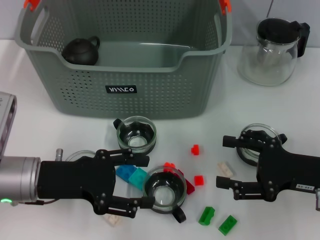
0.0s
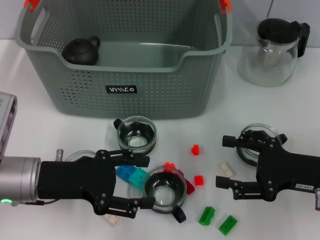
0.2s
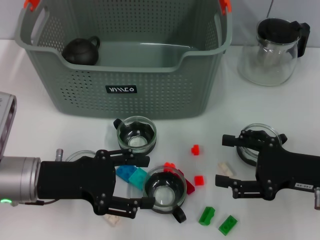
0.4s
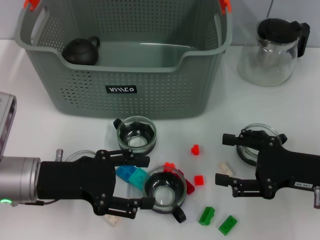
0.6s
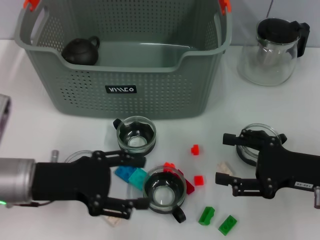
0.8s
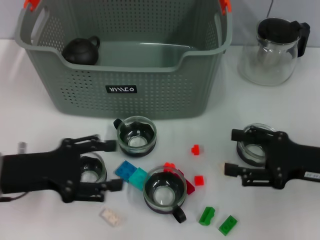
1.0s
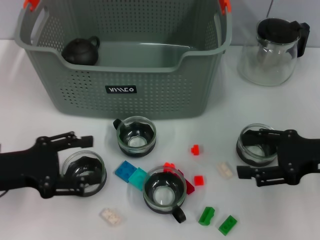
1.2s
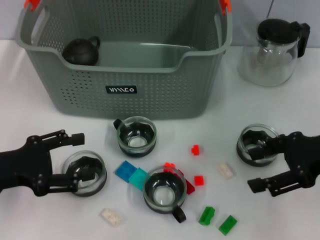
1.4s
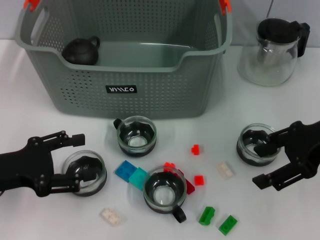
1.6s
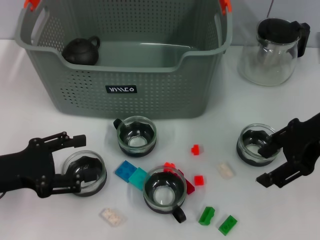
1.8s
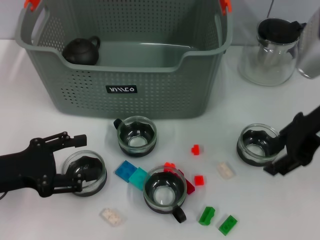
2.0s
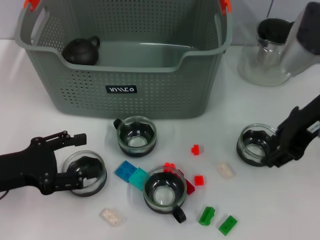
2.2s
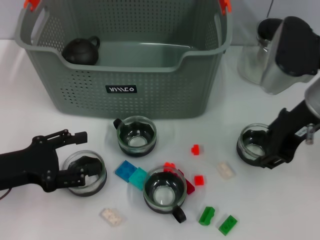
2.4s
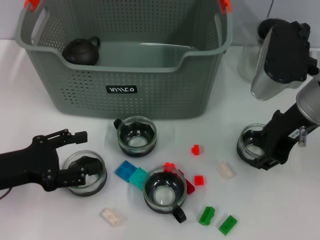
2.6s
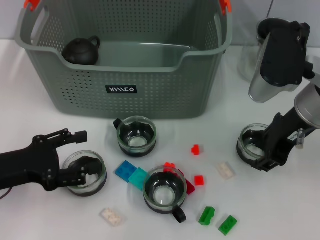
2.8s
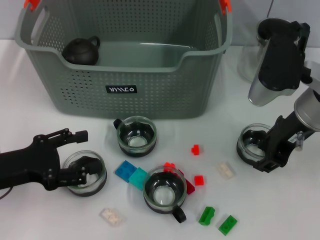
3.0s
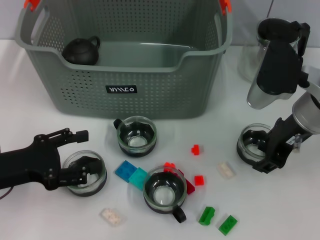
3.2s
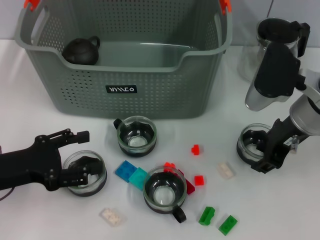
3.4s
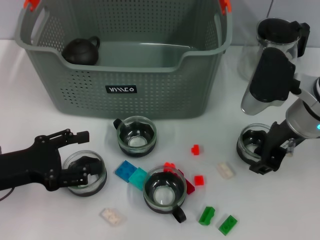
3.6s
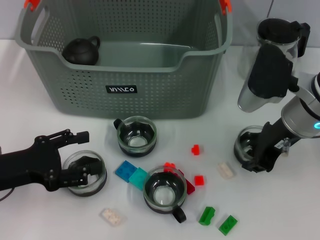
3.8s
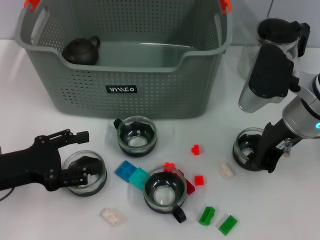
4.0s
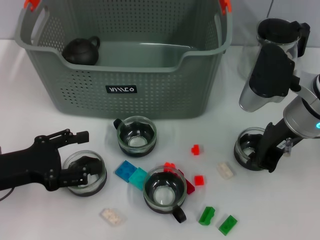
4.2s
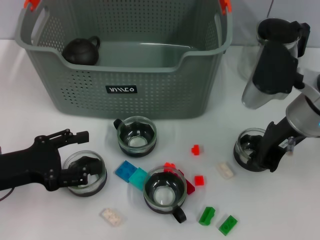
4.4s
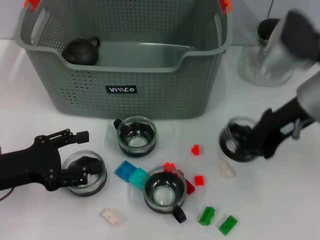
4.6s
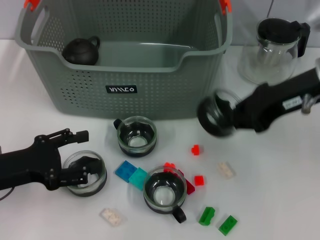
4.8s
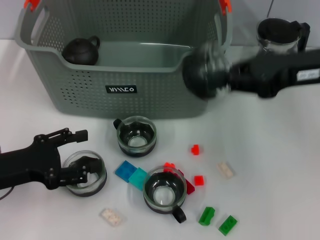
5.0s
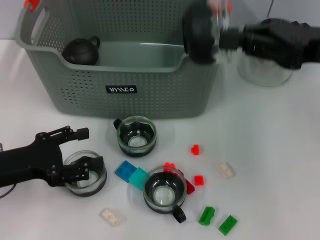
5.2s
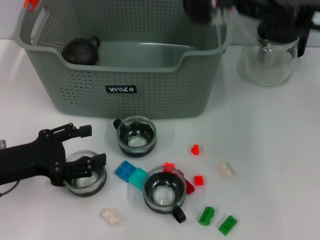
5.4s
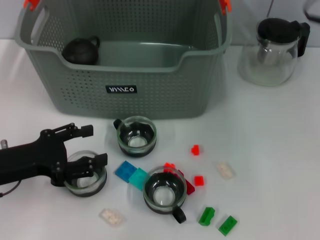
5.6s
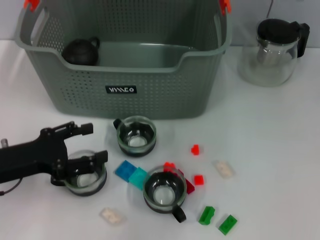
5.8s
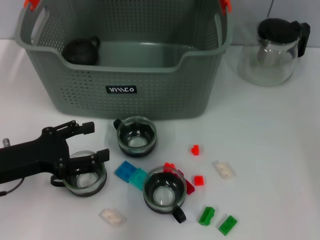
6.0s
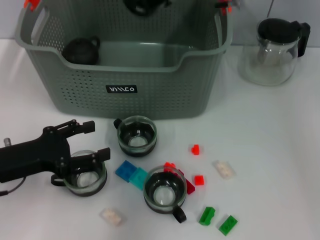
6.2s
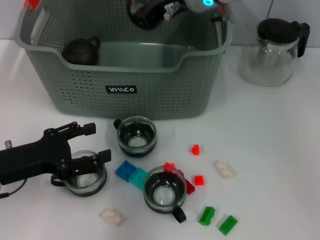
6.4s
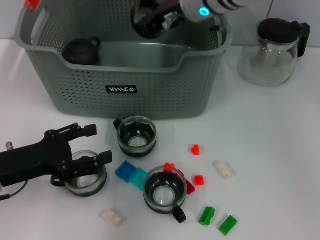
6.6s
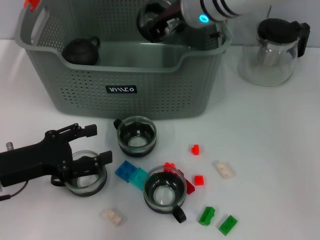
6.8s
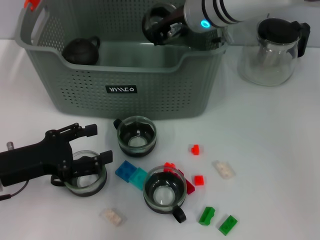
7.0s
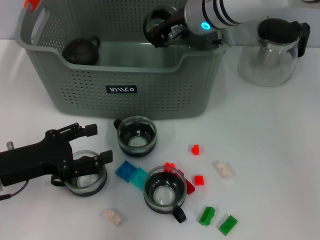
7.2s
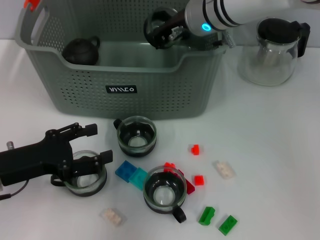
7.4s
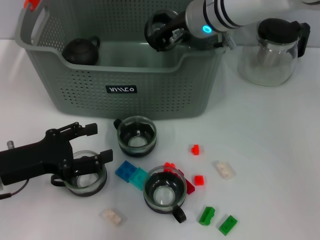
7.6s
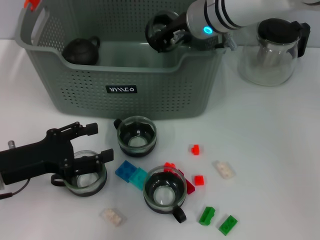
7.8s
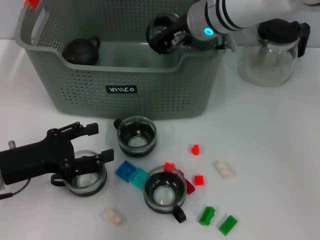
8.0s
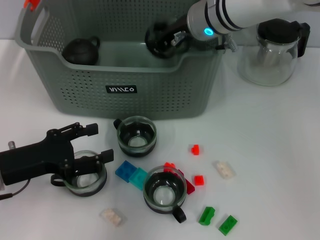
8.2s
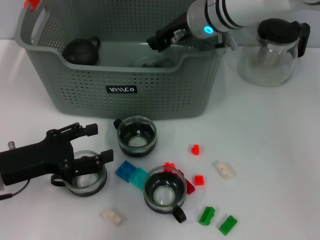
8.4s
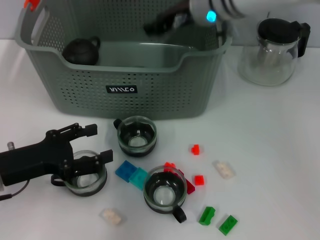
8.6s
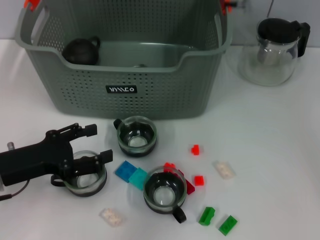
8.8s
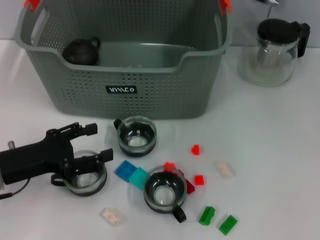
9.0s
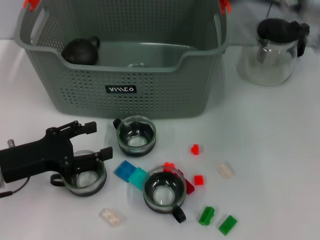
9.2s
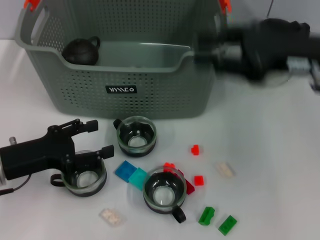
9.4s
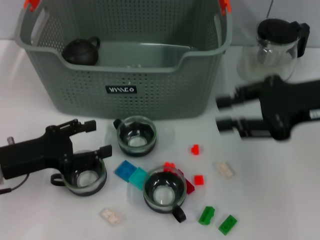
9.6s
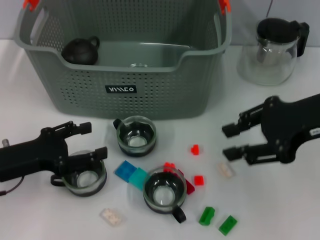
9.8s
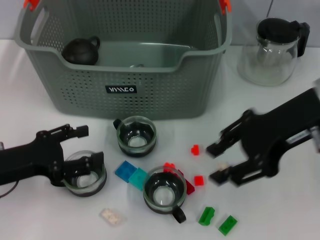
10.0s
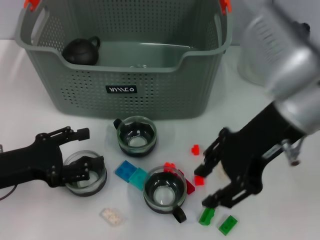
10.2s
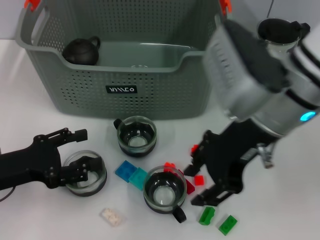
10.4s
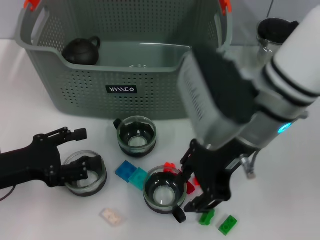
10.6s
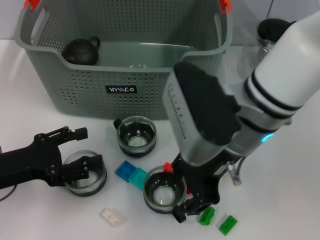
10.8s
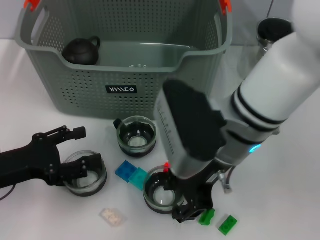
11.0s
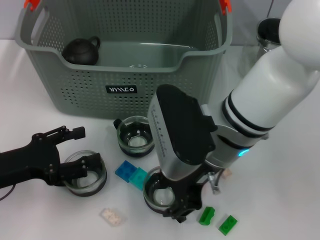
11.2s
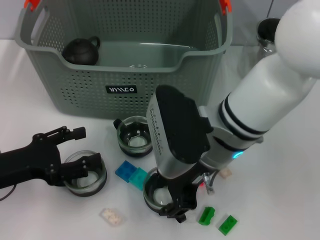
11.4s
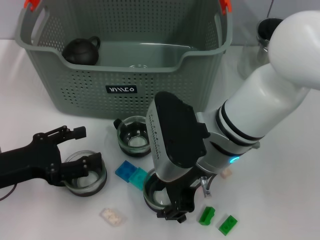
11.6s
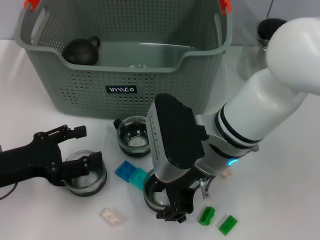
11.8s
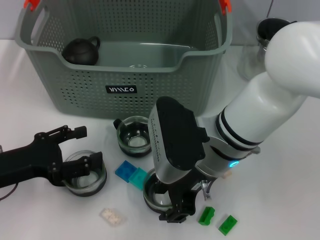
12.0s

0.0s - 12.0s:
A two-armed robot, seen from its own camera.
Task of the whole recording: pick up the teacup on the table and place it into the storage bin, pick up the block on the table and place it into the storage bin.
Step, 0.0s - 4.0s: Grasp the cup with right gripper.
Step, 4.2s - 8.4s: Place the cup in the storage box with right gripper.
0.0s - 1.6s: The right gripper is displaced upward and forward by approximately 15 cm; the left gripper goes approximately 5 cm to the left.
1.6s - 3.0s: The right gripper travels to the left by about 5 cm.
3.0s - 4.4s: The right gripper closes its fingers.
4.4s - 6.0s: The right gripper moves upward, forward and to the left, roughly 20 cm.
6.0s - 7.6s: The right gripper heads downward, covering about 10 cm.
7.6s - 9.0s: The right gripper moves to the right and upward, approximately 10 cm, and opens.
9.0s - 10.4s: The right gripper moves backward, approximately 15 cm, and goes to the right and returns, some 10 cm each way.
10.4s - 12.0s: The right gripper travels downward and to the left by some 10 cm.

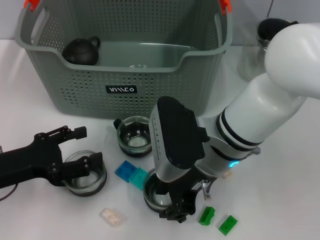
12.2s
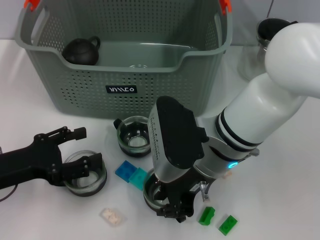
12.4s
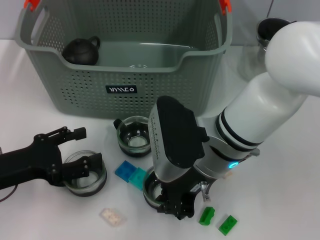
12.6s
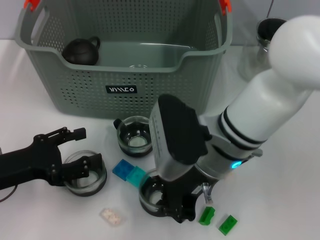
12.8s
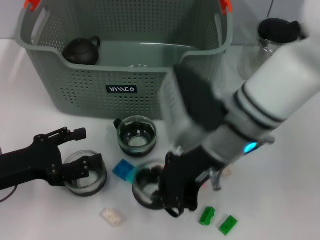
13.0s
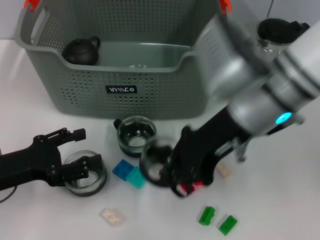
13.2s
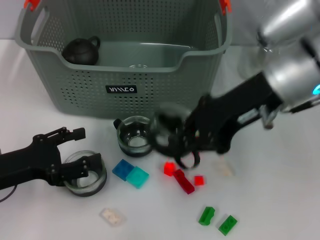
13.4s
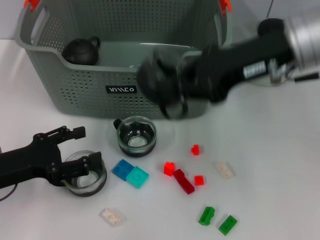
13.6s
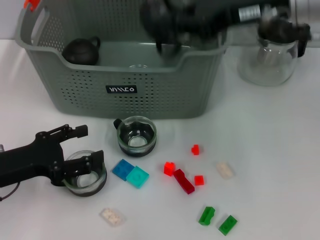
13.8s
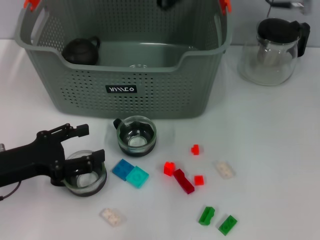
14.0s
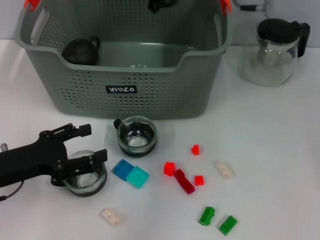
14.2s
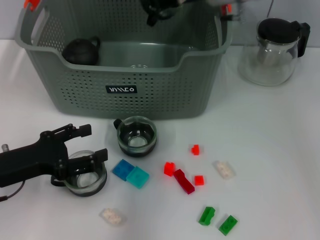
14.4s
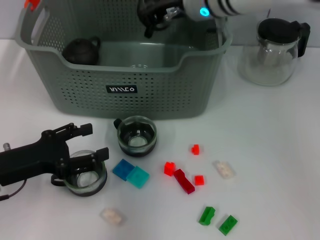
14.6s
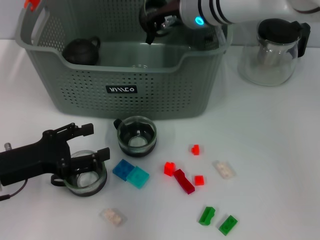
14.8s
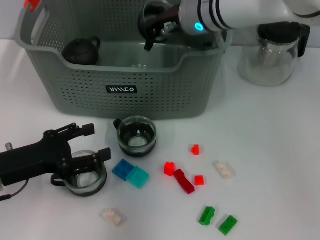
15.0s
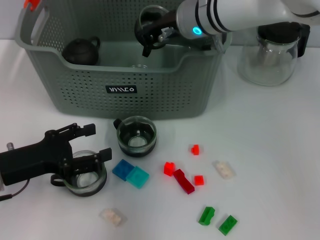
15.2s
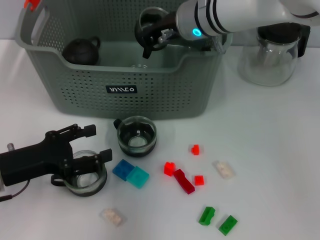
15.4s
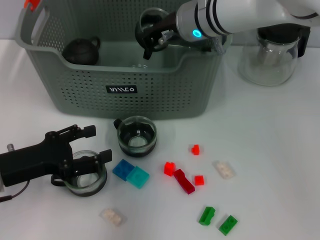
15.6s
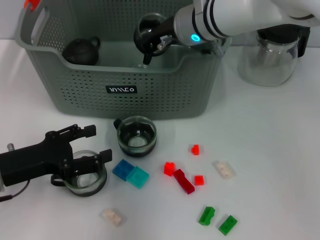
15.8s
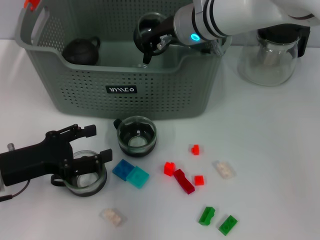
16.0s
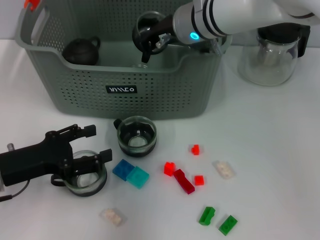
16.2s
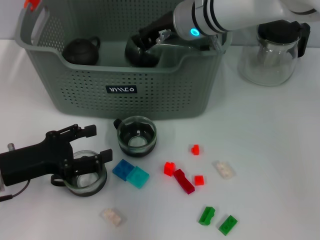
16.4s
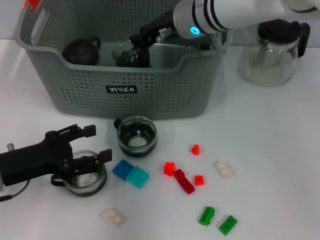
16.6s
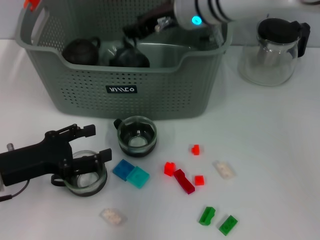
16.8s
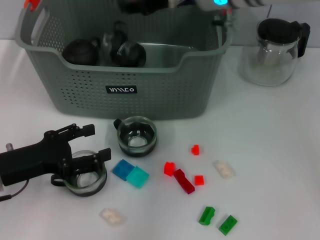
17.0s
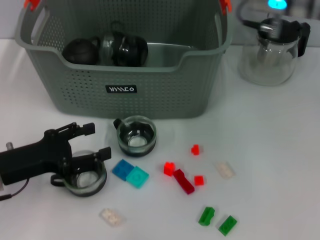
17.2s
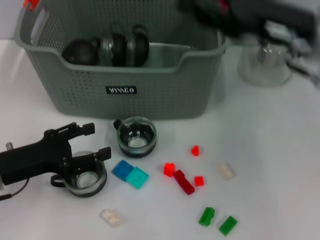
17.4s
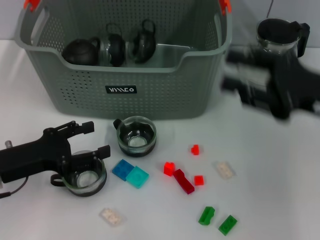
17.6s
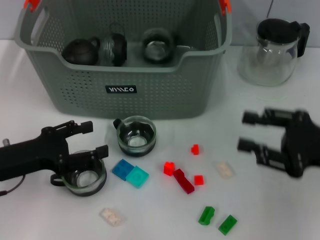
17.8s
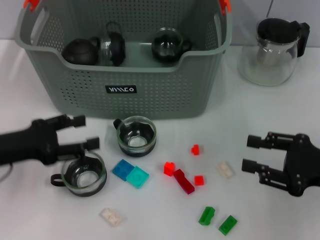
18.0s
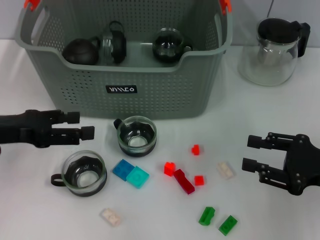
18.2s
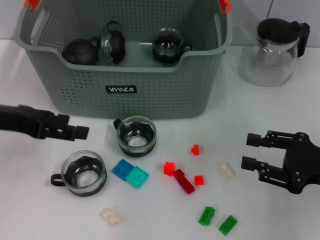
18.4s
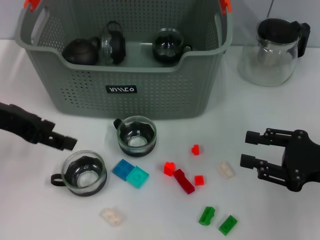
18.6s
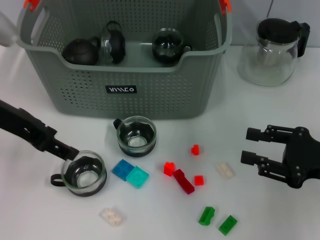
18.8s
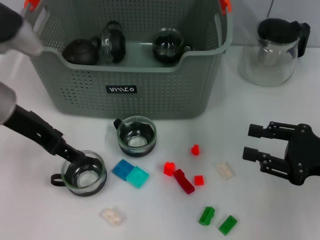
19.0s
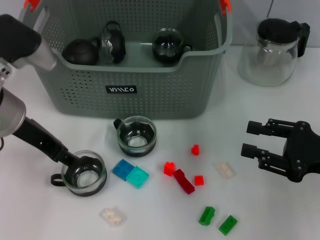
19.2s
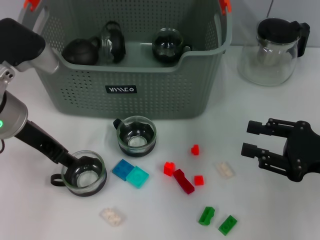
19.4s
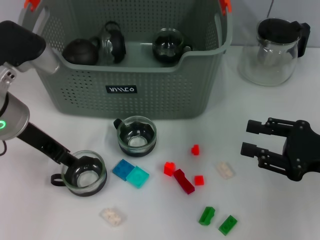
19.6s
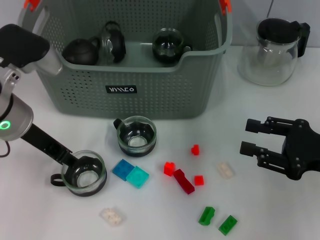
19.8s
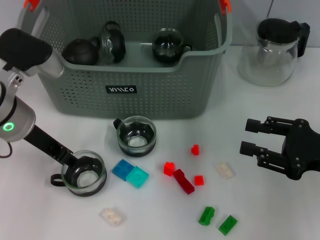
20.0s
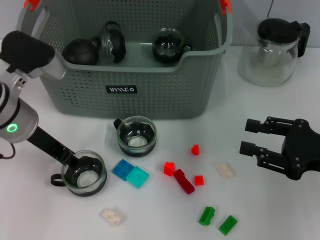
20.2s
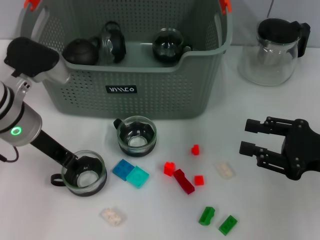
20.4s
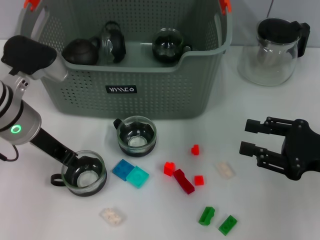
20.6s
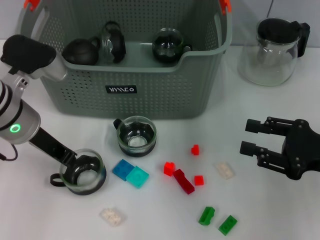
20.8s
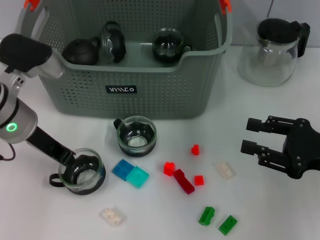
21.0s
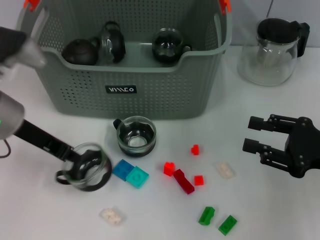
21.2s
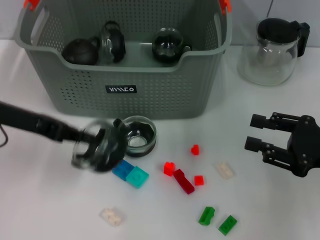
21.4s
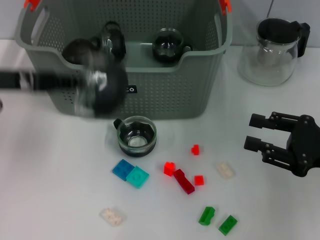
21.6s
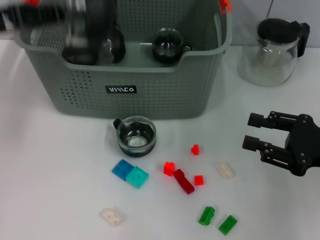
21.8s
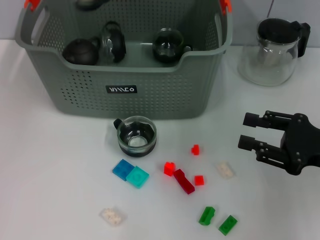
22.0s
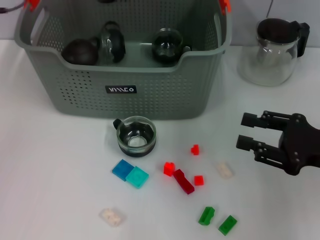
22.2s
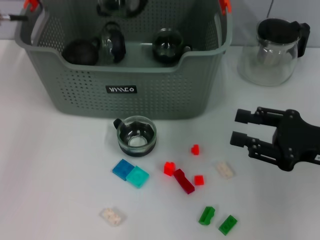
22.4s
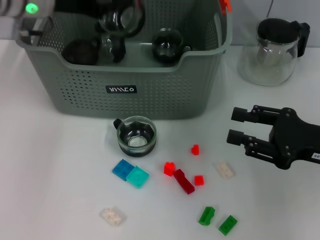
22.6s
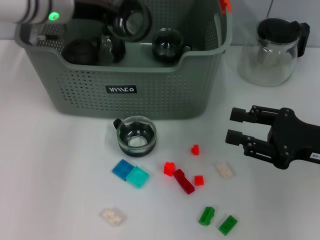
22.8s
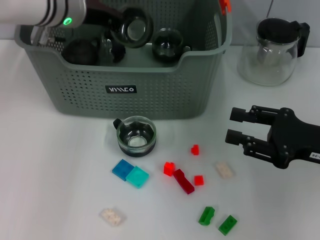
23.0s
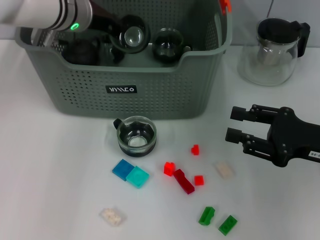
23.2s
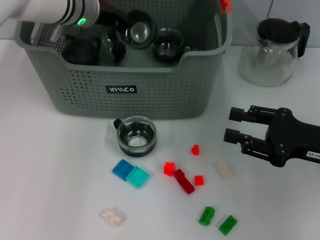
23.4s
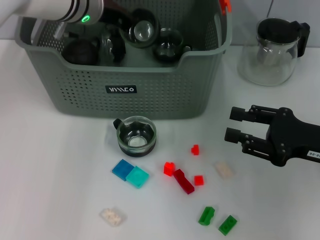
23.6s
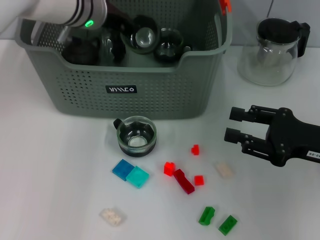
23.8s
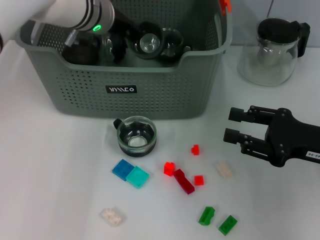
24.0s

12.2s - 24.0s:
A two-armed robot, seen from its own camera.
Task of the whole recording: pick up the teacup on the table and place it into the storage bin, pick up the block on the table and place it into the storage bin.
Step, 12.8s - 16.8s: Place the cup in the storage box with right gripper.
Step, 17.2s - 20.6s: Grasp the cup with left gripper.
12.2s - 13.6s: The right gripper shifts about 15 cm upward and to the right, and closes up.
13.6s - 15.2s: The right gripper is displaced forward, to the left and downward by some 15 cm.
15.2s - 16.6s: Both grippers stay put.
16.6s - 18.2s: The right gripper is displaced to the right, backward and downward by some 35 cm, and opens. The left gripper goes some 5 cm upward.
18.2s - 19.6s: The left gripper goes roughly 10 cm to the right.
19.6s - 21.0s: The left gripper closes.
21.0s - 22.6s: The left gripper is displaced forward and upward by some 15 cm.
22.6s - 24.0s: The left gripper heads to the right, covering some 10 cm.
